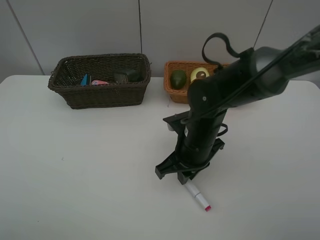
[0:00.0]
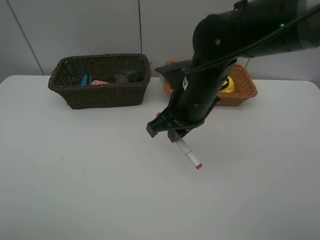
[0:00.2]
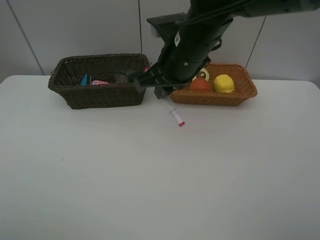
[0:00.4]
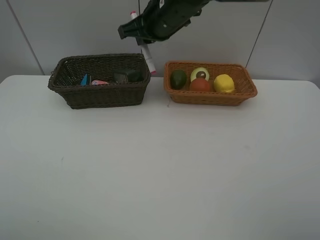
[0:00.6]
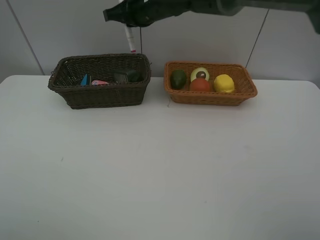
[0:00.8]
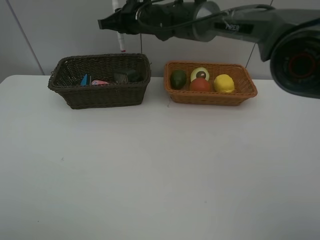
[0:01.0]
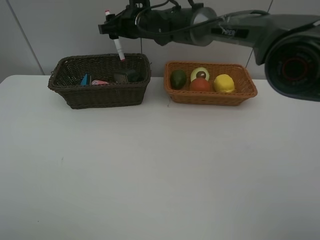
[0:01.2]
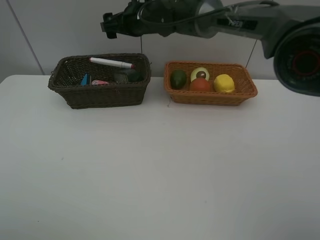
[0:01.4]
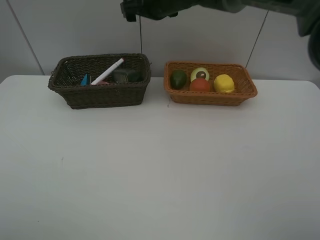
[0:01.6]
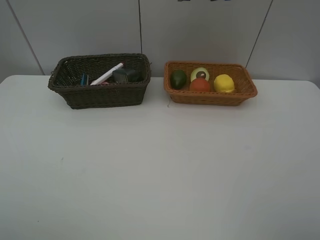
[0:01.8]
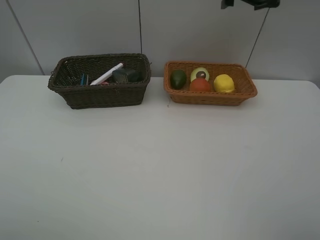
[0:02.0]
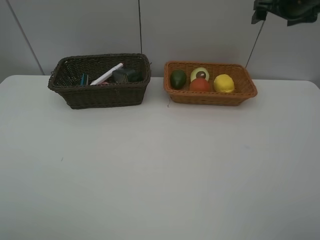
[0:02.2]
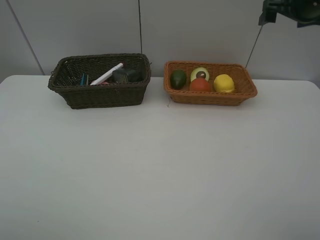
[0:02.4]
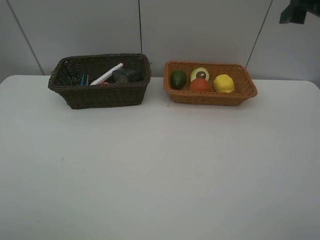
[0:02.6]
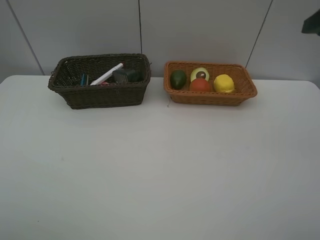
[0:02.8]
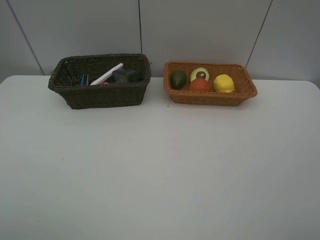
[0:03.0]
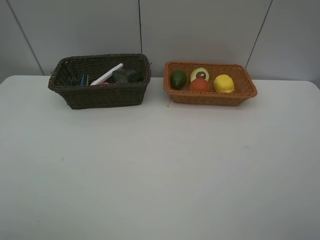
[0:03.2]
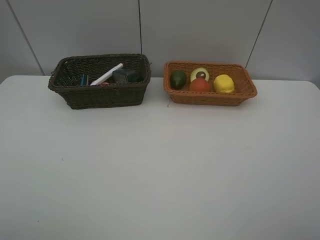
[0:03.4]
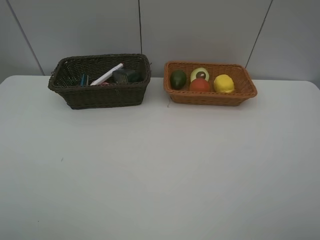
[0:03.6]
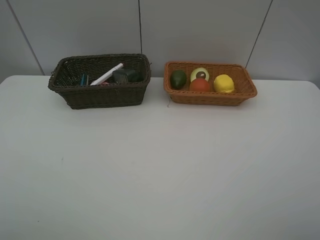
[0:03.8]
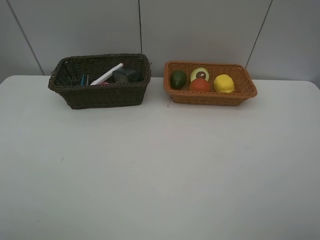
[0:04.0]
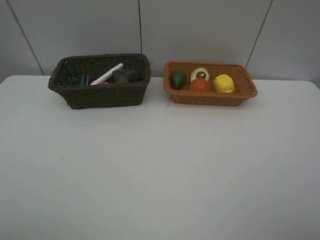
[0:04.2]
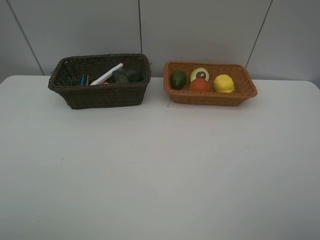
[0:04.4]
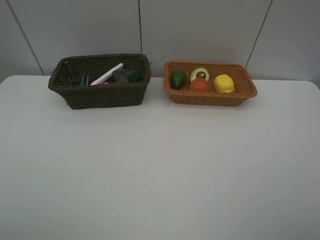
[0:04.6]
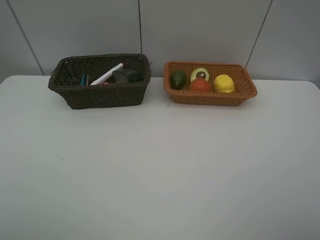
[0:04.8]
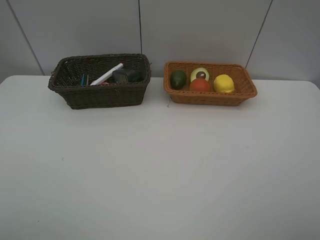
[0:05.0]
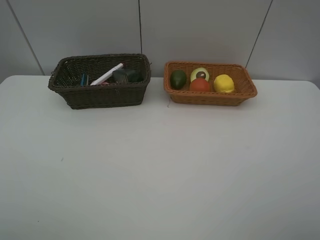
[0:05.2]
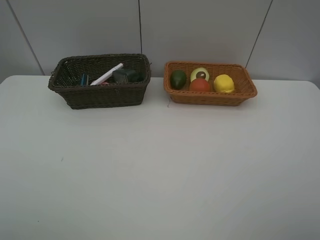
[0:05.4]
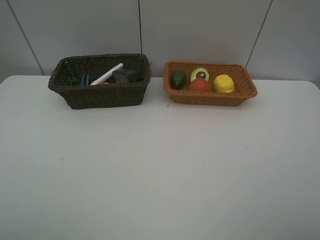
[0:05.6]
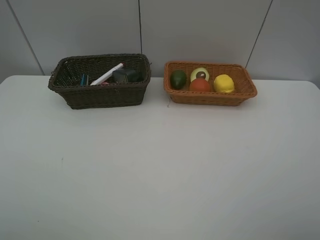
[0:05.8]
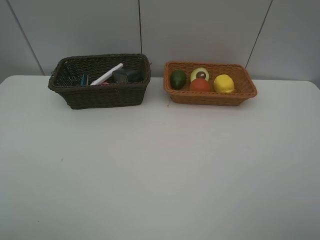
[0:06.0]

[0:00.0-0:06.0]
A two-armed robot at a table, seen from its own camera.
Task of the whole recording: Place multiple objects separately in different baskets.
Step, 0:00.2 to 0:01.4: Place the red marker in the dark basket with right gripper.
0:00.0 to 0:01.6: The right gripper goes about 30 cm forward and upward, and opens its fingers.
0:01.6 to 0:03.0: The right gripper shifts about 50 cm backward and to the right.
0:04.4 to 0:06.0: Both grippers stay put.

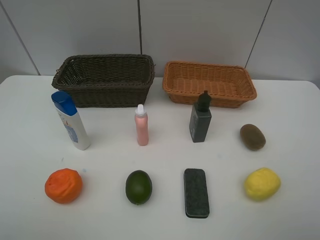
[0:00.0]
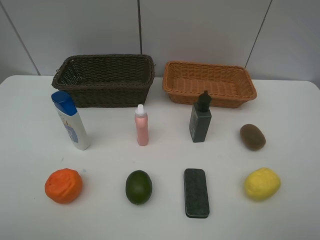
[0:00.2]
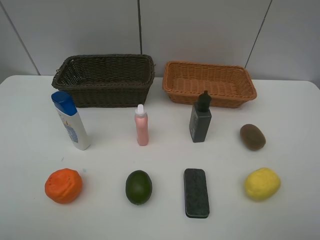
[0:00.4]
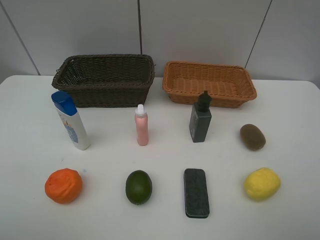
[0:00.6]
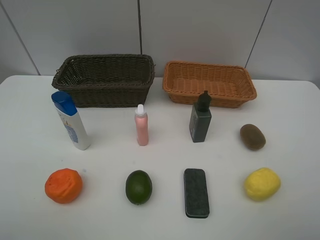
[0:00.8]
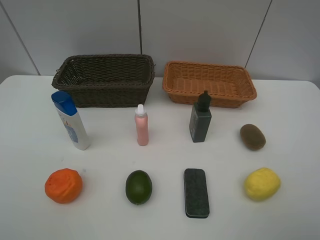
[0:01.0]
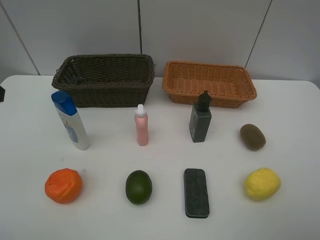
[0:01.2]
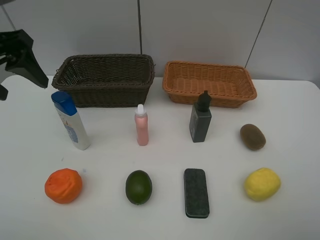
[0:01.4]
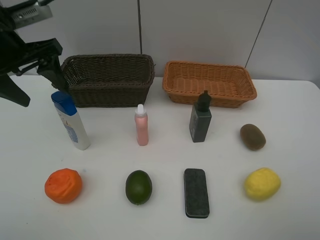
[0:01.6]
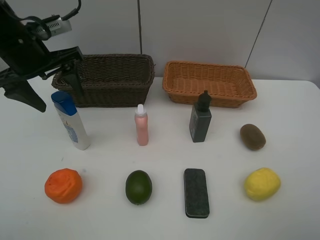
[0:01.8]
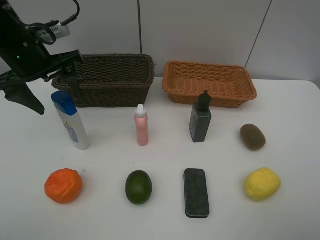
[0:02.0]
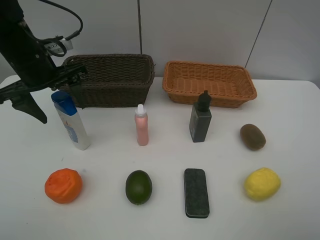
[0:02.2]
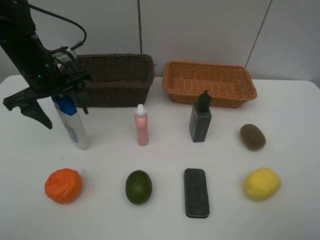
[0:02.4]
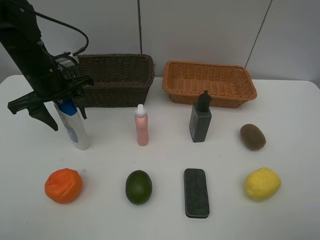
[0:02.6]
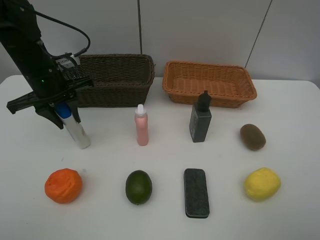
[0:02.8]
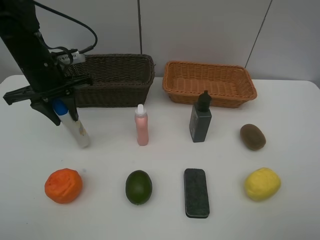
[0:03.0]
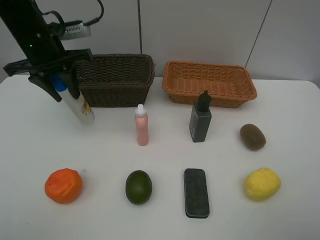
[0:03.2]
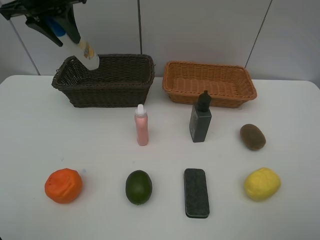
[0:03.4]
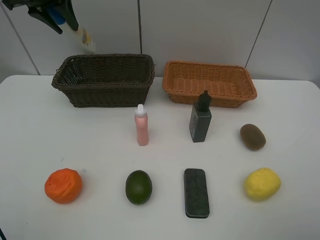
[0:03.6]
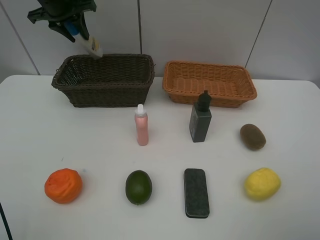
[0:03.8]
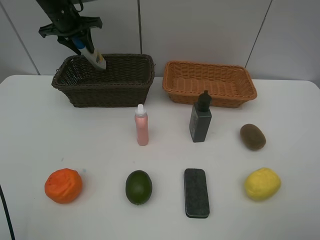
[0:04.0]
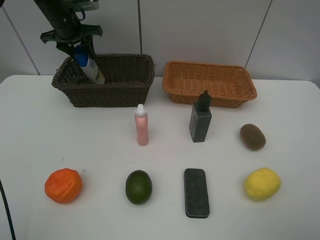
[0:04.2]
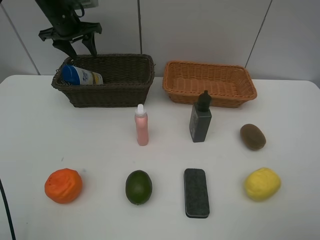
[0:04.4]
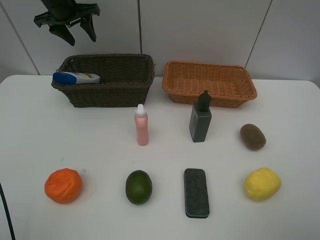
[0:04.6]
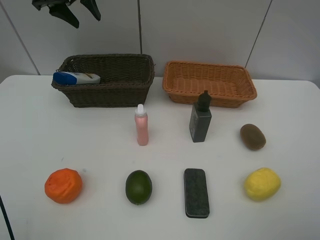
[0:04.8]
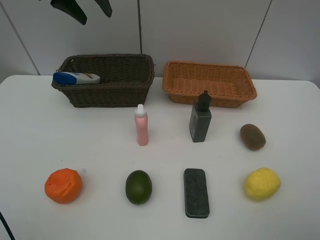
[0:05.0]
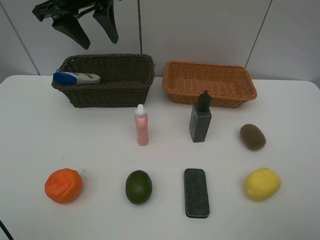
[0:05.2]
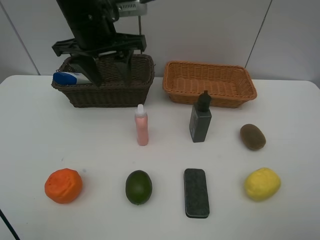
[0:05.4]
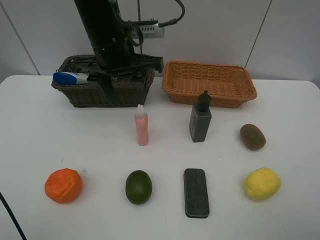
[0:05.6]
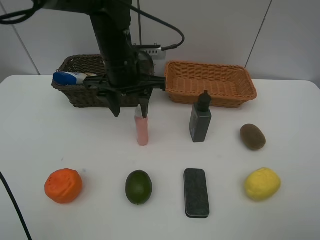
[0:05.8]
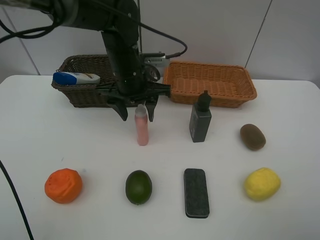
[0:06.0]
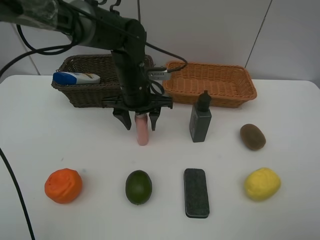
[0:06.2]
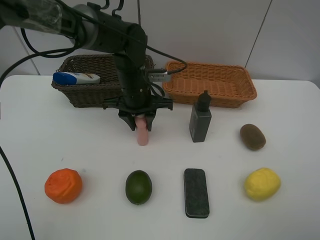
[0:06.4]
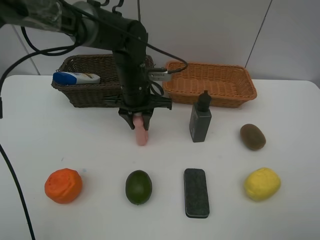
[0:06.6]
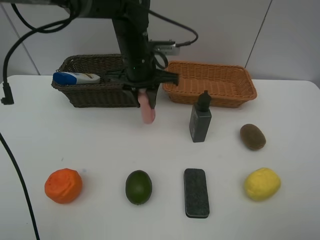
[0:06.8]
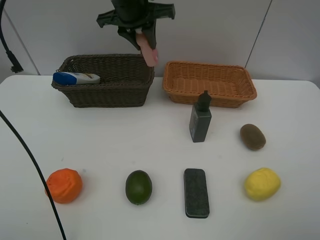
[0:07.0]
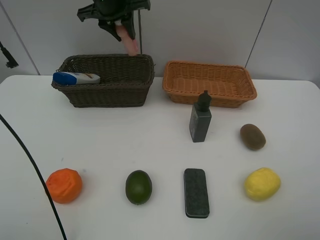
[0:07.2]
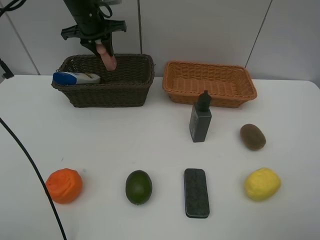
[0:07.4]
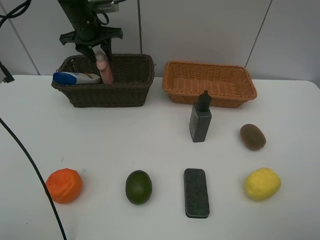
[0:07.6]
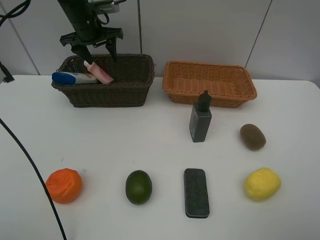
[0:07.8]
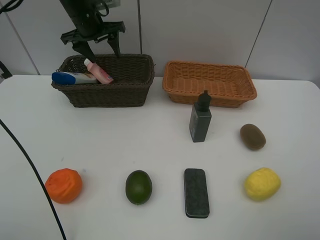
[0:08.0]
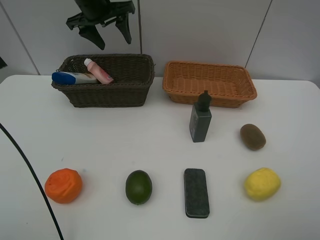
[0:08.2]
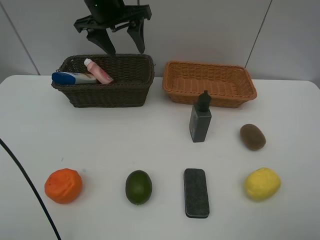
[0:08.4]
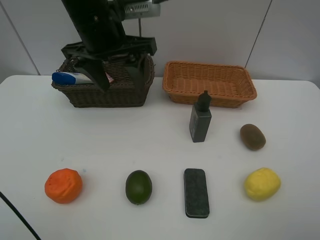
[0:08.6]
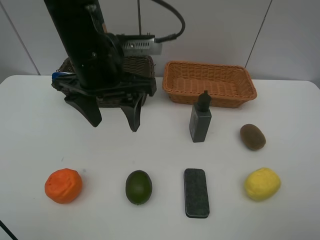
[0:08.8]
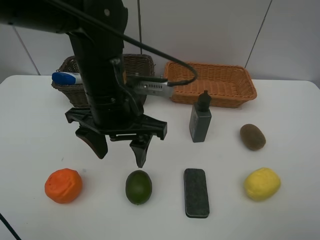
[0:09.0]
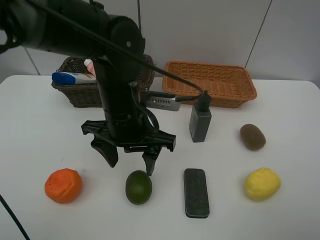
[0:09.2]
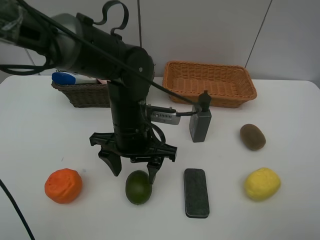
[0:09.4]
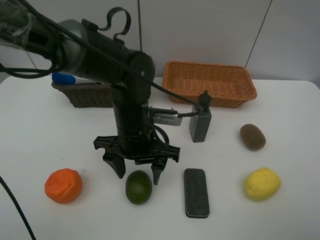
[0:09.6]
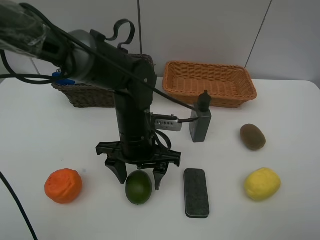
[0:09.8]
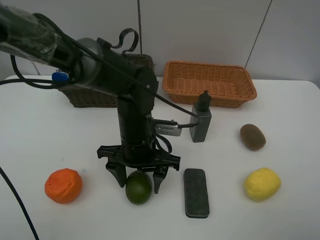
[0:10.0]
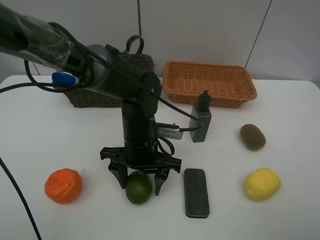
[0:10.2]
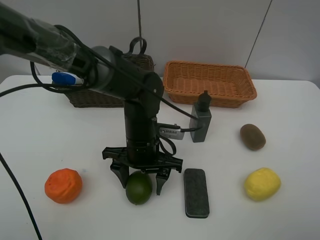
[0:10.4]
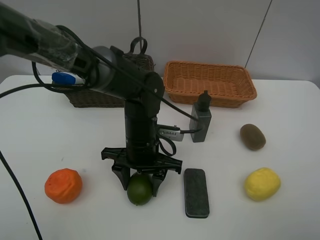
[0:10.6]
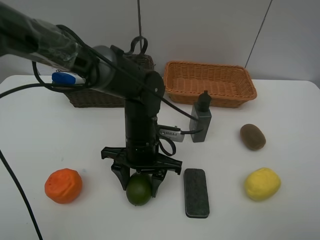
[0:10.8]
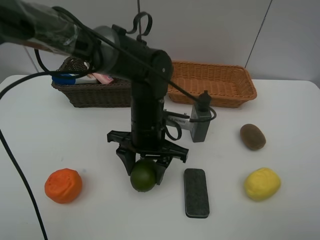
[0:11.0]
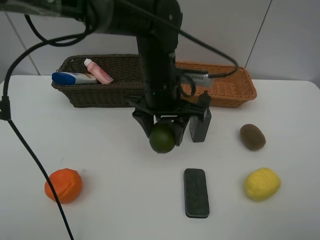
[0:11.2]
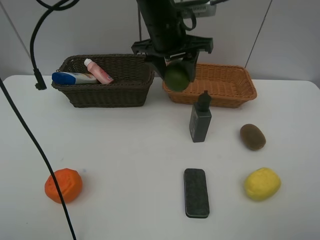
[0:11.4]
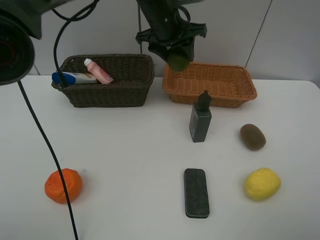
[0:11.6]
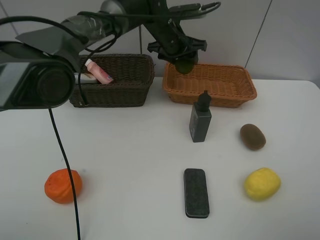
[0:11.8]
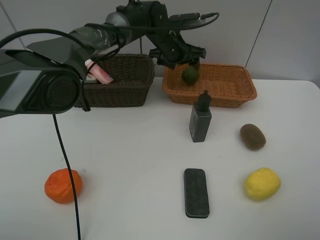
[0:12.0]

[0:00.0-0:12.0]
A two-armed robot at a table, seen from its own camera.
Task of the whole recording: Place multiple objects separately in different baskets.
Step, 0:00.0 to 0:03.0: Pick up the shampoo with left gripper.
Step, 0:03.2 to 0:04.4: Place the shampoo in the dark basket with left gripper.
Step, 0:04.6 to 0:06.6: Pick up the laundry detergent with left gripper.
Step, 0:06.8 to 0:08.0: Place the laundry detergent in the dark basket with left gripper.
Step, 0:08.2 to 0:10.8: Pick up the lime with left gripper.
0:00.0 to 0:01.6: The left gripper goes some 30 cm forward.
0:01.6 to 0:03.0: The left gripper goes approximately 5 cm downward, and closes up.
0:03.0 to 0:04.4: The left gripper travels forward by approximately 15 cm, and opens.
0:04.4 to 0:06.0: The left gripper is displaced to the right and backward by some 25 cm.
0:06.0 to 0:07.6: The left gripper swings up and down, roughly 15 cm each way, with 2 reversals, and closes, then reopens.
0:07.6 to 0:09.0: The left gripper heads backward and to the right, covering about 30 cm, and opens its fingers.
0:09.0 to 0:10.4: The left gripper is displaced downward by about 10 cm.
0:10.4 to 0:12.0: The left gripper is displaced forward by roughly 25 cm.

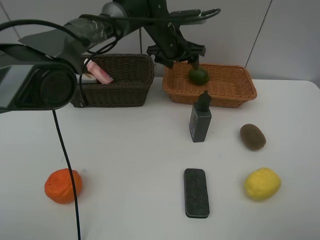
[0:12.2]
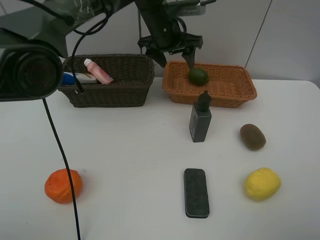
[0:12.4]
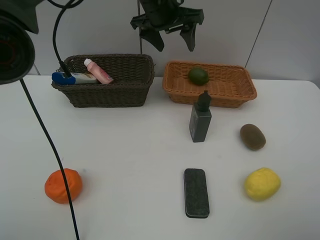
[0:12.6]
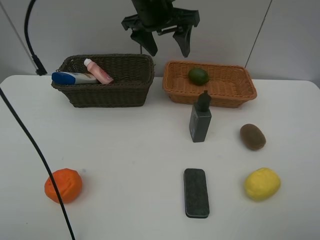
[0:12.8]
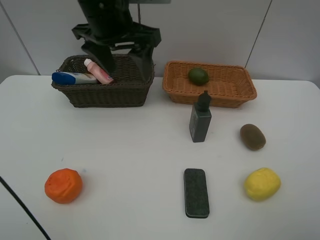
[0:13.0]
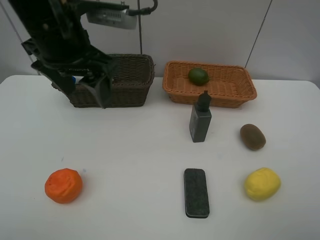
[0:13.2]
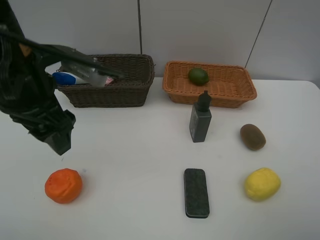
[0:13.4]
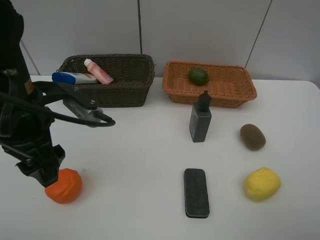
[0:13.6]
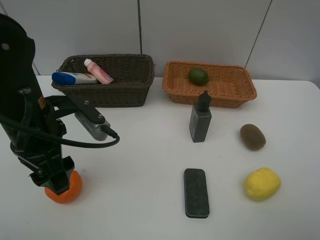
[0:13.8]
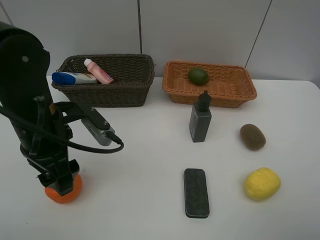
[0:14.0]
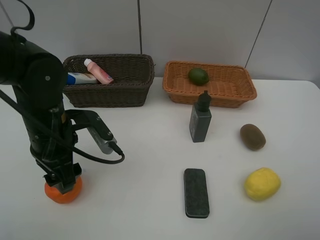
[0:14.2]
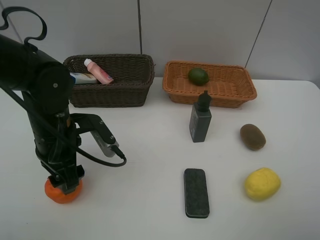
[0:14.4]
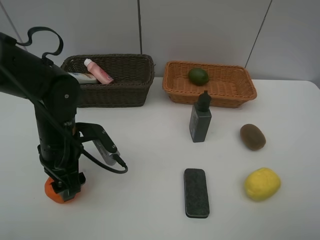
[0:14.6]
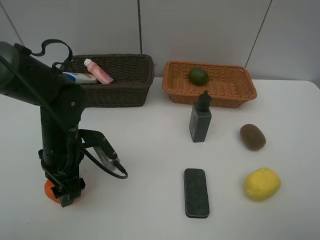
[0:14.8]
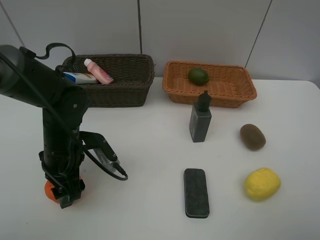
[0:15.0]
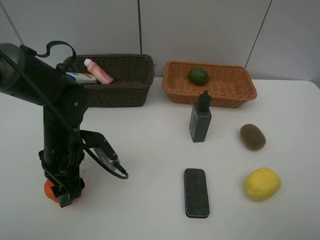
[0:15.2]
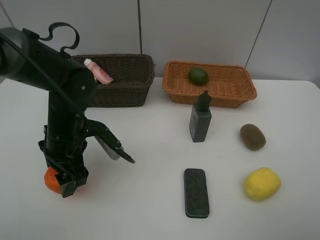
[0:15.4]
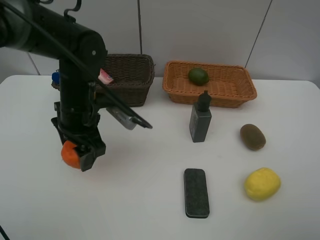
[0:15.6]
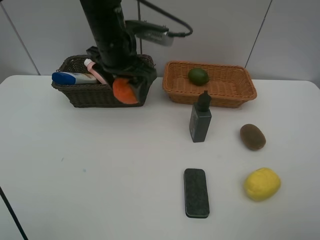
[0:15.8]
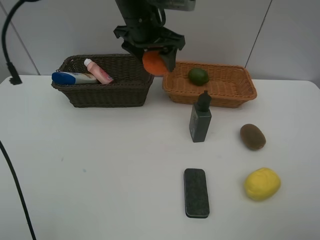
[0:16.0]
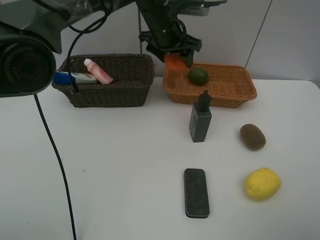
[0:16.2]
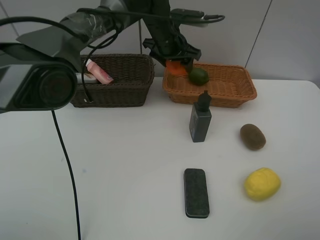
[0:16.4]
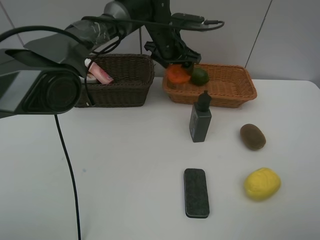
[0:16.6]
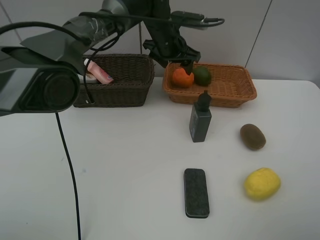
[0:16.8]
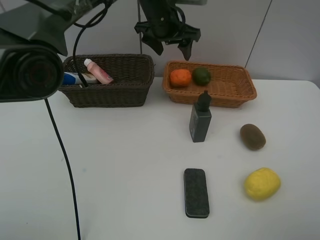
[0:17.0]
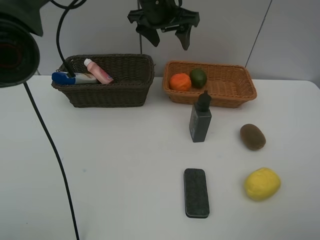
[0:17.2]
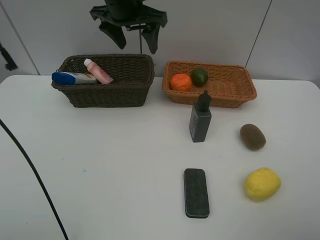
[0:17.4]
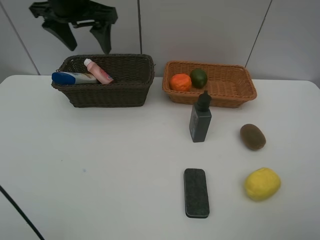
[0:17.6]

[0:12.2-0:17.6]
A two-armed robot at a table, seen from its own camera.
Task of the whole recording: Place multiple objects separately in different baskets.
Step, 0:12.4 to 0:15.4: Pick up the orange with left gripper.
Step, 0:15.6 to 0:16.8: Place the orange in the light basket with left gripper.
0:12.2 to 0:13.6: The left gripper shifts some 35 cm backward and to the left.
0:13.6 to 0:15.0: The left gripper shifts approximately 10 cm downward.
0:15.0 to 0:16.2: The left gripper travels forward, to the right and upward by about 30 cm.
0:16.2 to 0:17.6: The left gripper shifts approximately 20 cm to the left, upward and backward.
